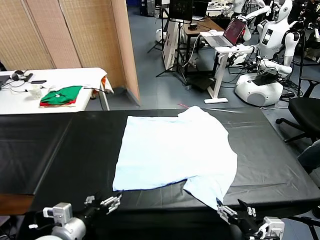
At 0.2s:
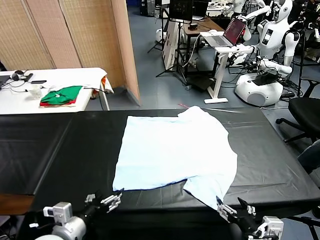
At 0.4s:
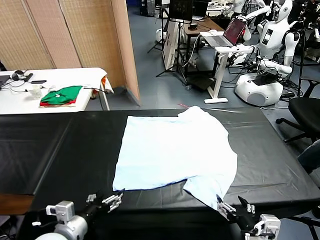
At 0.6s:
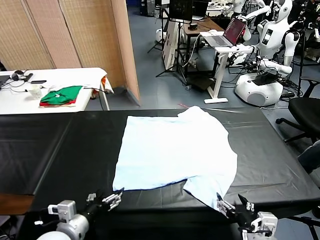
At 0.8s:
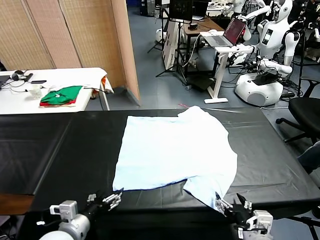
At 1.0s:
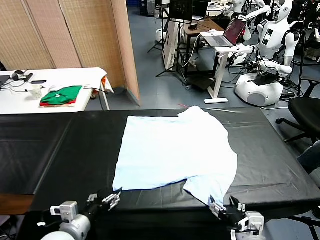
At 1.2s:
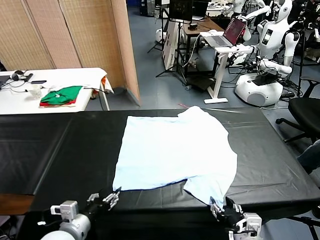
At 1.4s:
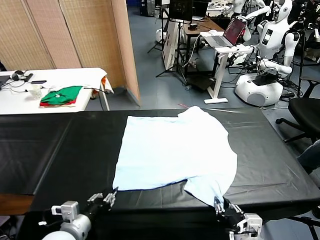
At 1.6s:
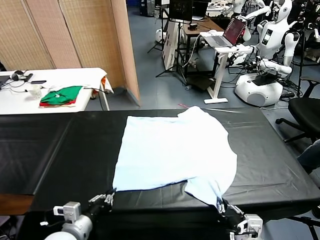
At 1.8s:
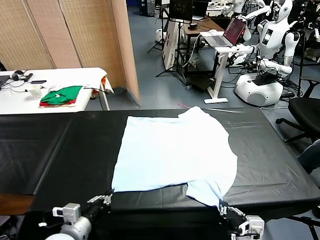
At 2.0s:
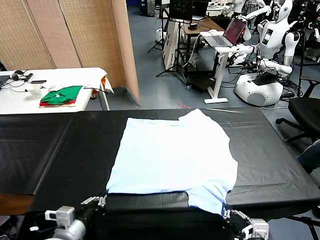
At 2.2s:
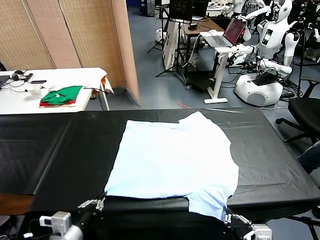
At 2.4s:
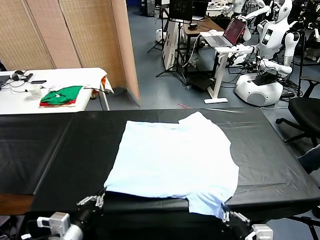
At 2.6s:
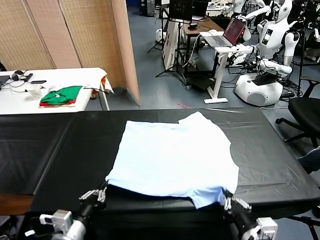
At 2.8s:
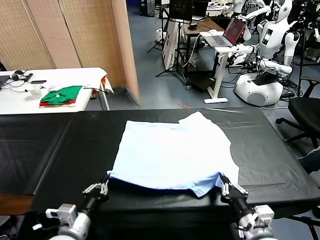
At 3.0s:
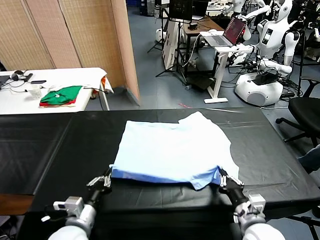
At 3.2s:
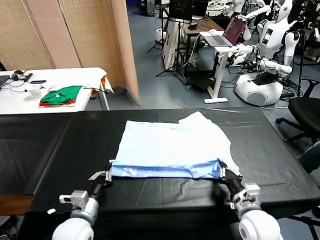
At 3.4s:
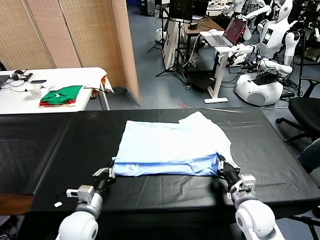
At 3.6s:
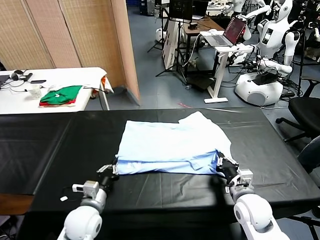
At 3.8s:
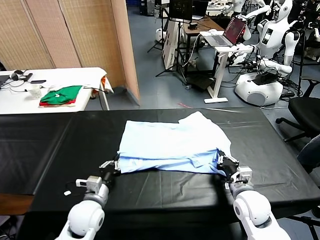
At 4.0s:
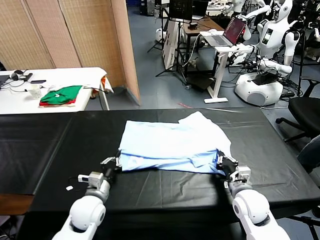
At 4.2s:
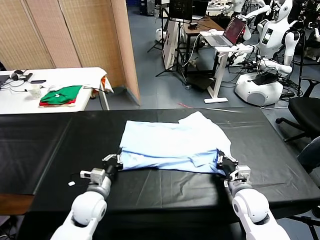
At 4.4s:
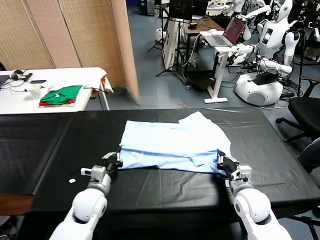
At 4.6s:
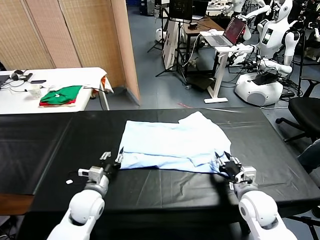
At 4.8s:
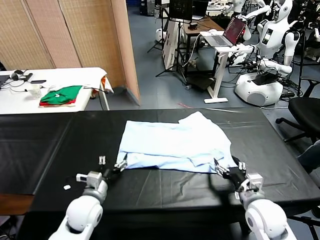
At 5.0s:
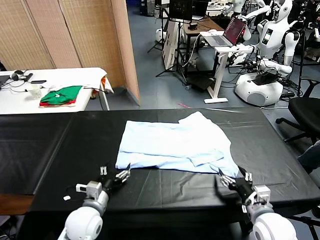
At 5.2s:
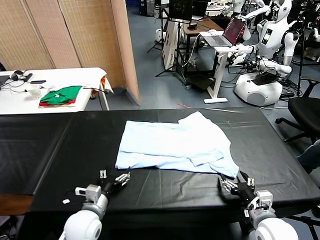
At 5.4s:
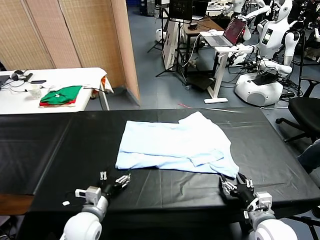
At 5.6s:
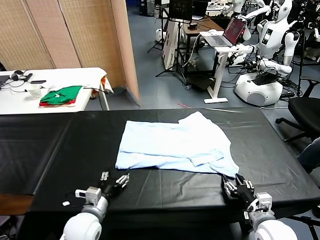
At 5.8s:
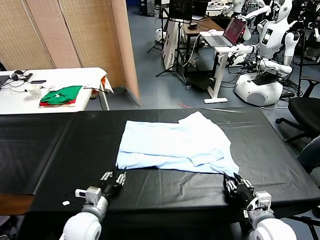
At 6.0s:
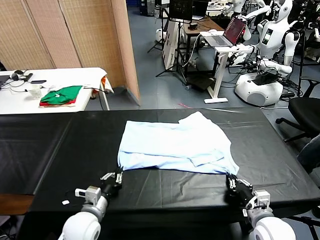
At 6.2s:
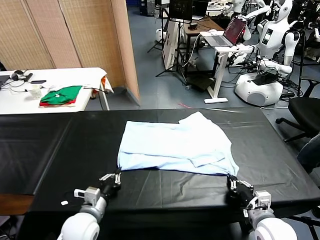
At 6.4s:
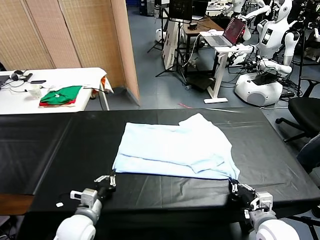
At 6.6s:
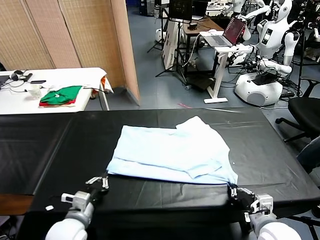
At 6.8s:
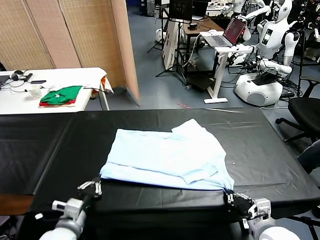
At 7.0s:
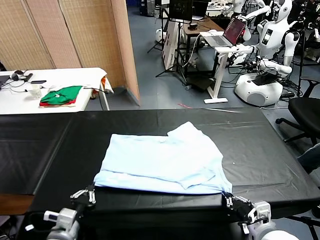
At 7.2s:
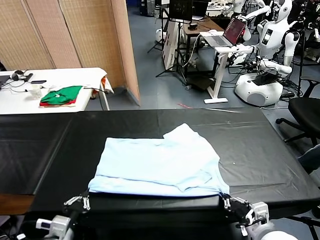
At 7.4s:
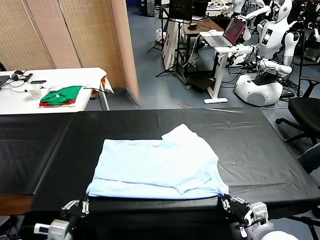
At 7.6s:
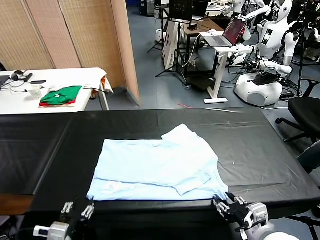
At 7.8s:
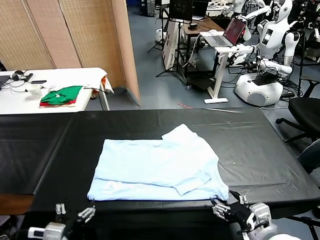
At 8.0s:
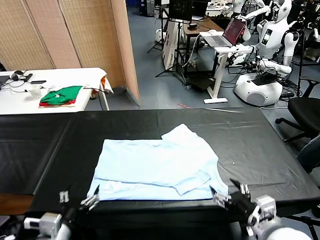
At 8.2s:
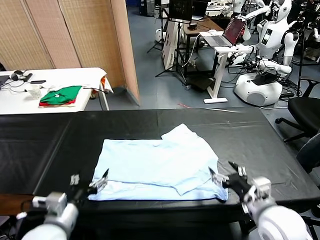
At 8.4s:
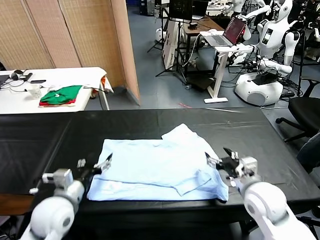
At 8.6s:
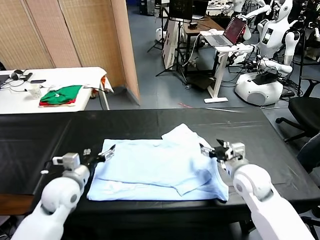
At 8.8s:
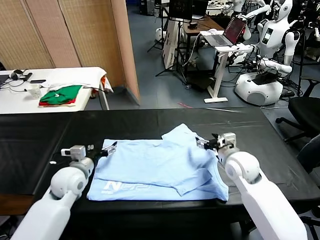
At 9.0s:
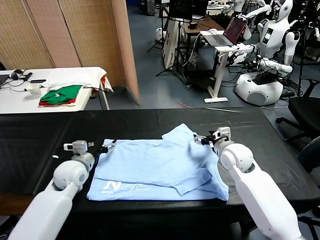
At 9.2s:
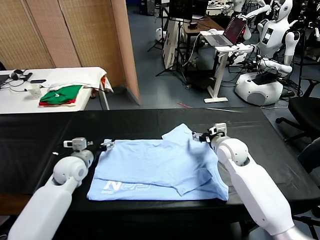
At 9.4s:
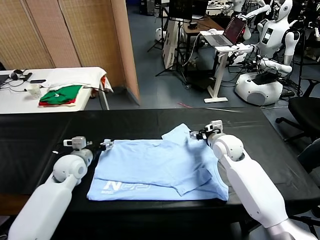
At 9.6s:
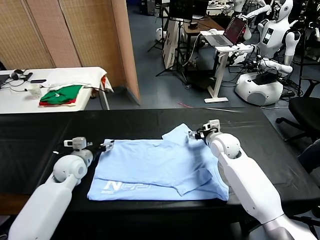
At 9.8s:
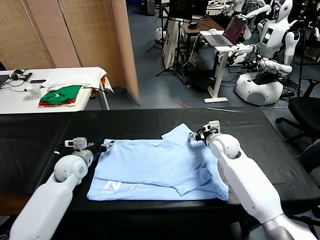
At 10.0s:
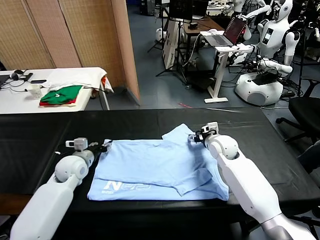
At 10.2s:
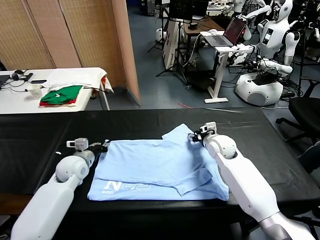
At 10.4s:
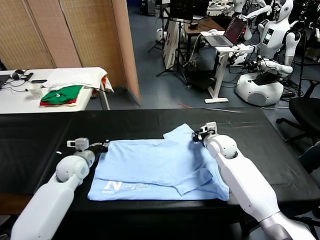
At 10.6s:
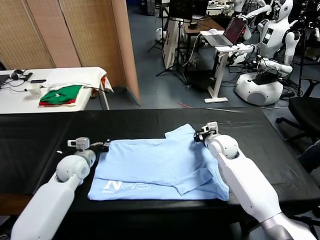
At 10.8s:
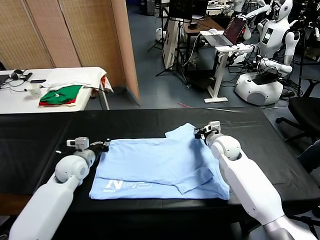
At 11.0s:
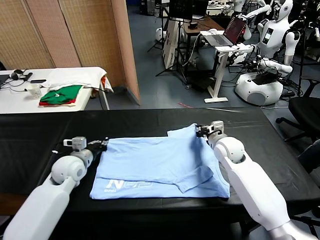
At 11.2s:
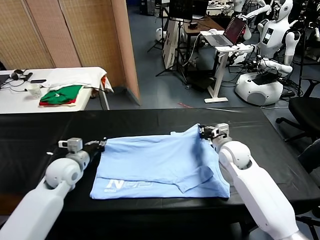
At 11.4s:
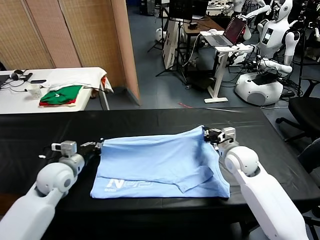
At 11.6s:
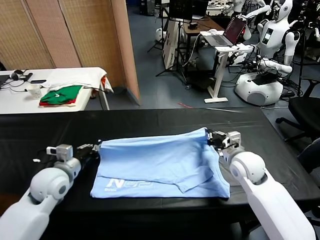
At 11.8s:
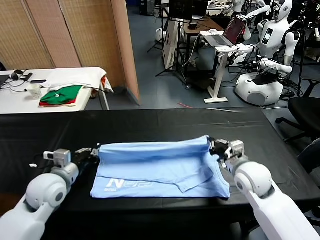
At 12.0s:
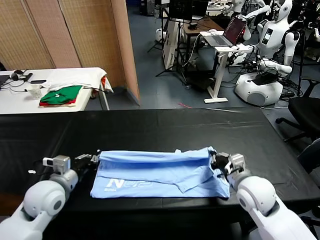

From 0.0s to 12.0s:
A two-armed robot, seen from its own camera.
Task of the whole recording: fold and organize the clothes.
Step, from 0.0s to 1.4s: use both grippers simultaneously to clamp the lower edge of the clothing fabric.
Step, from 1.8s to 4.6s: use both grippers to drag the lower edge of the fabric forward and fold it over the upper edge.
Step, from 4.8s to 7.6s: Drag the clothes downward with both gripper.
Step, from 7.8s to 10.2s: use both grippers simultaneously to clamp the upper edge of the clothing fabric.
From 1.6s to 3.0s: The right gripper goes approximately 15 cm forward.
From 3.0s to 4.4s: The right gripper opens its fingers. The left gripper goes about 10 cm forward.
From 4.4s to 6.0s: Both grippers move backward, some 5 cm. The right gripper closes its fingers, while the left gripper opens, then closes again.
From 6.0s to 7.6s: The right gripper goes approximately 10 cm upward and backward, and opens. Meanwhile the left gripper travels backward and upward by roughly 15 cm, and opens.
From 7.6s to 9.0s: Both grippers move forward, about 30 cm.
From 9.0s to 10.4s: The left gripper closes; the right gripper closes its fingers.
From 10.4s to 12.0s: The left gripper travels backward and upward by some 15 cm; the right gripper is displaced backward by approximately 20 cm.

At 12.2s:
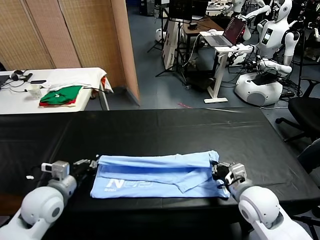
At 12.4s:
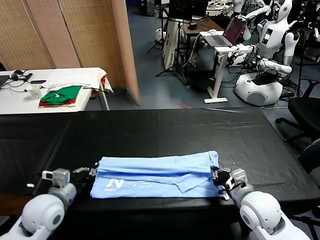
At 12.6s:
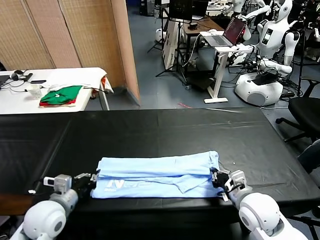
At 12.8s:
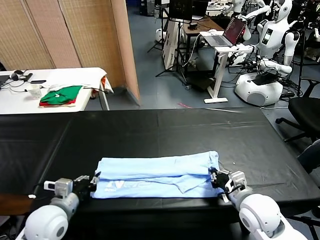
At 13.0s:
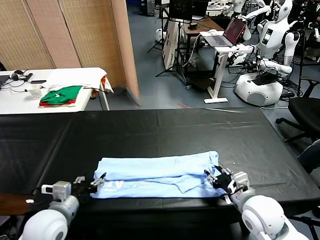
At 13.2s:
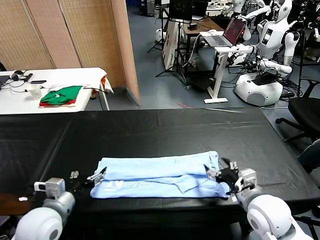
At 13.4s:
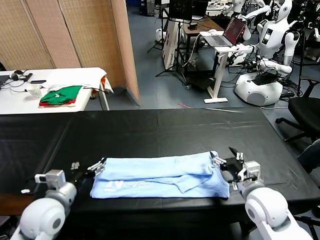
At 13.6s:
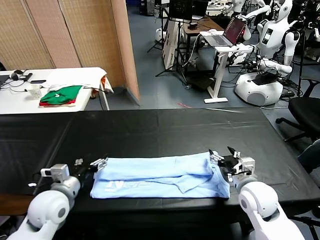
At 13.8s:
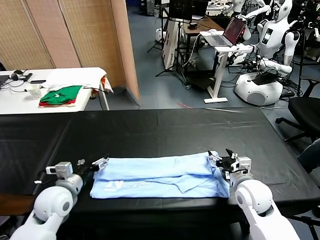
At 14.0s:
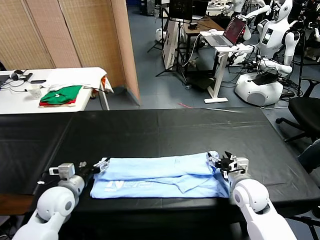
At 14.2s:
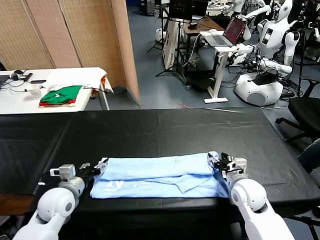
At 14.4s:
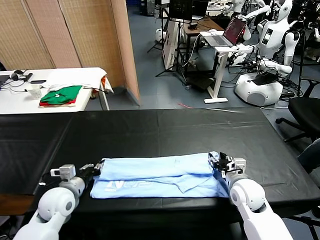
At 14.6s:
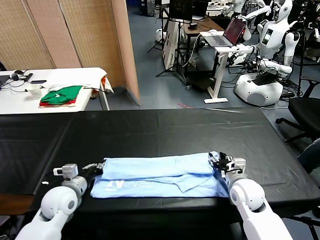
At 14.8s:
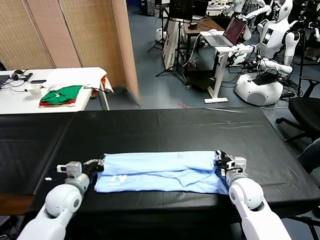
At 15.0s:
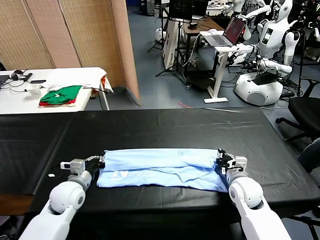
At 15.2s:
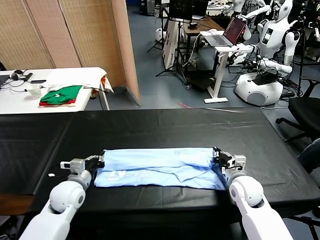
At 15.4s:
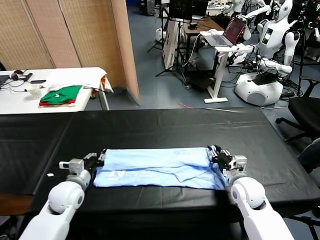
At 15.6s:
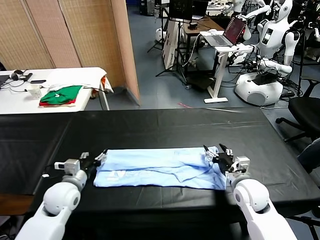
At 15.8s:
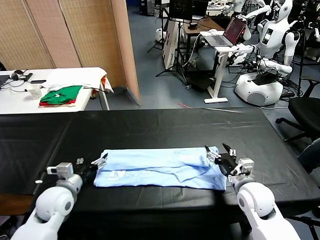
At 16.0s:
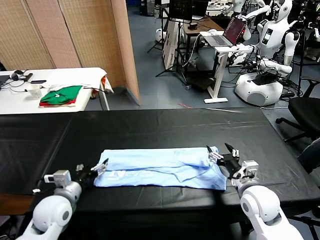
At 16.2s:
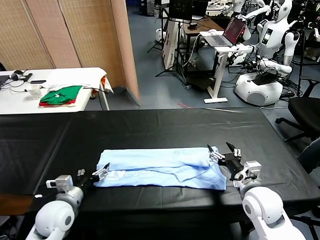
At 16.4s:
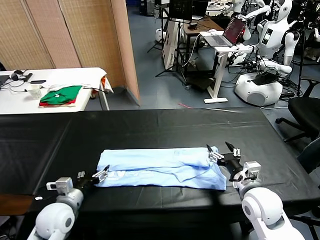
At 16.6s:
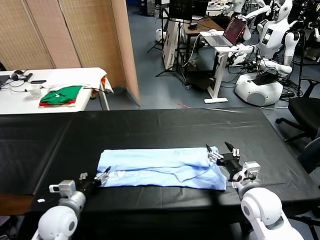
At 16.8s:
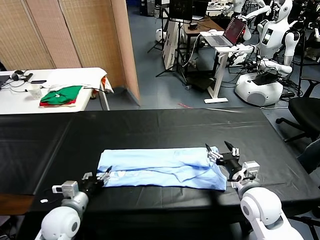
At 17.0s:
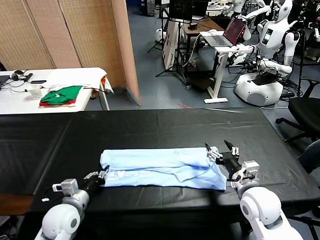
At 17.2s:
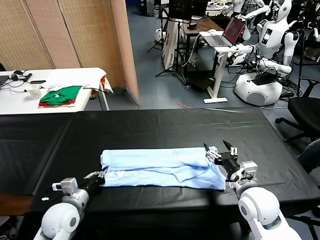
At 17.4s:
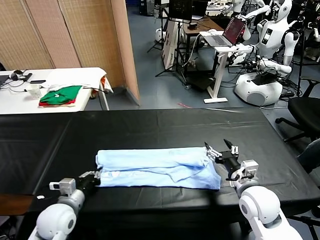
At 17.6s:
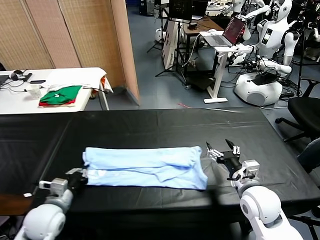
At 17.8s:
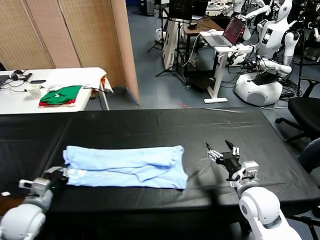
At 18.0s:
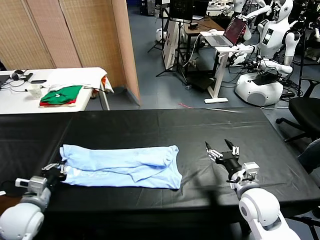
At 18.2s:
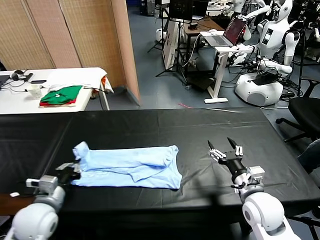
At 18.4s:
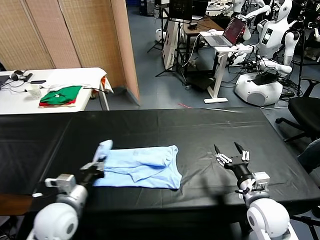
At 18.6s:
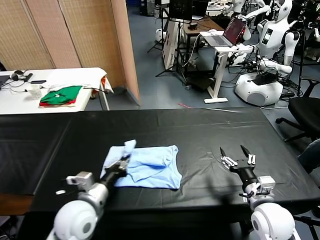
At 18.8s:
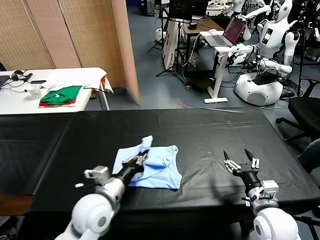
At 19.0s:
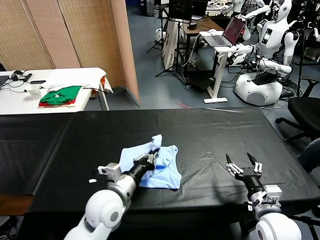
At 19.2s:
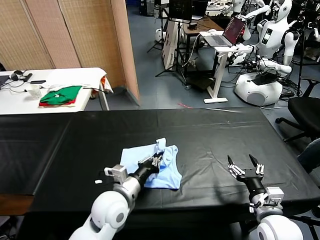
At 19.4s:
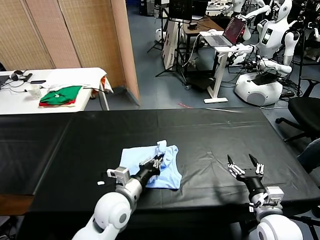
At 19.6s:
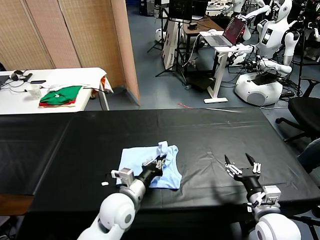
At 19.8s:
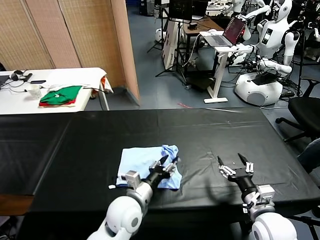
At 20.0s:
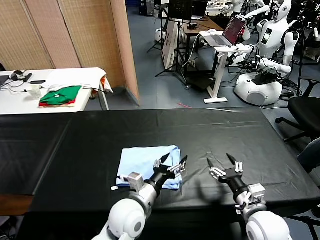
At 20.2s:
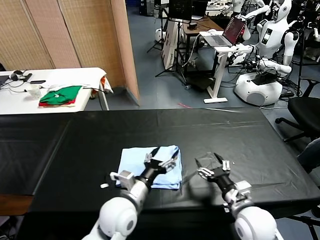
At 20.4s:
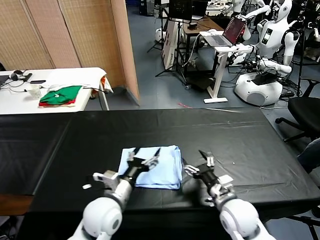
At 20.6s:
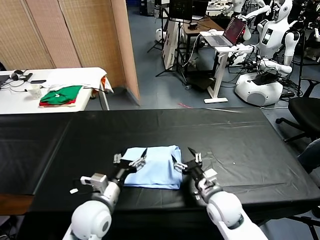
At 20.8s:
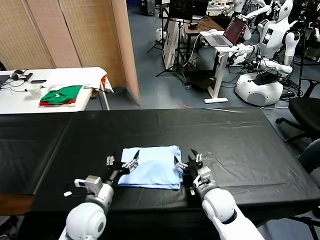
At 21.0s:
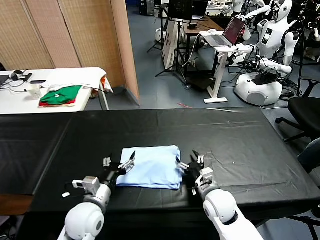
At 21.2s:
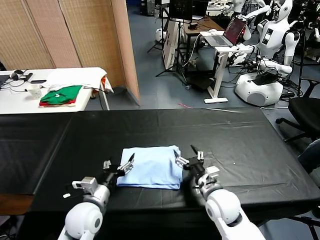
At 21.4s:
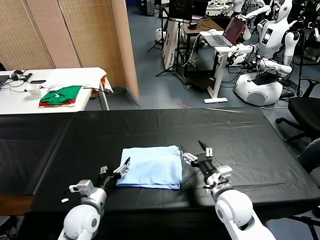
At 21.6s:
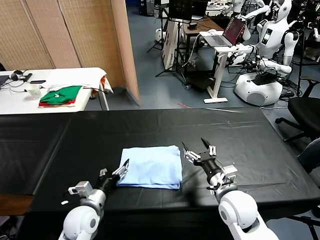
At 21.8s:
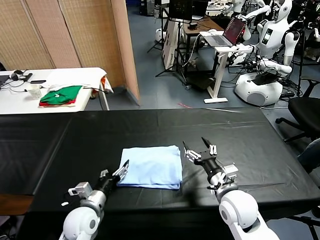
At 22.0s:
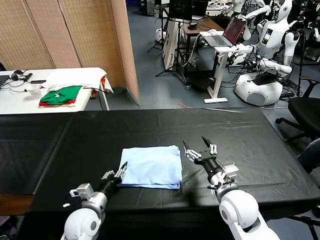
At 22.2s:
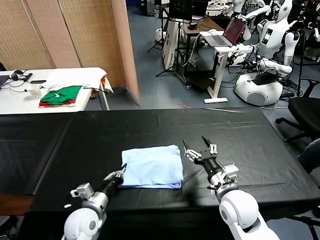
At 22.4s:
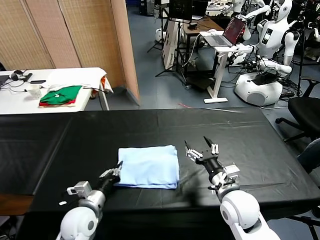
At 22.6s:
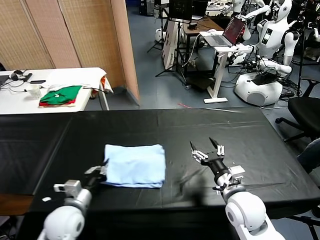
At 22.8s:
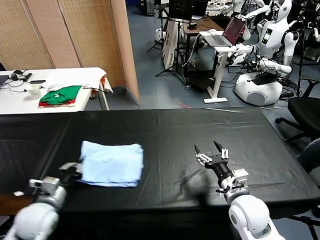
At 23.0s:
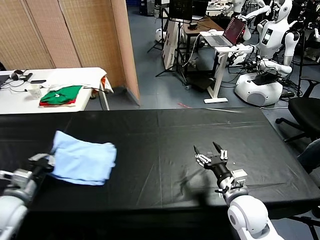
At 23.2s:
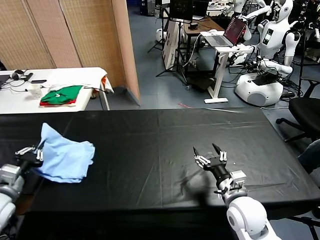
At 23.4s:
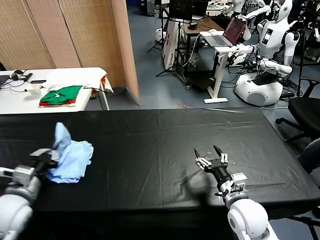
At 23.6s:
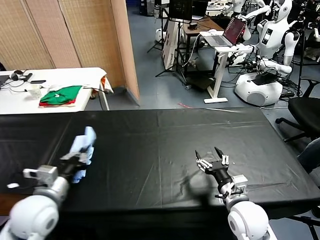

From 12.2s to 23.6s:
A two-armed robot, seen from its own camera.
Task of the whole recording: fold and organize the clothes.
Step, from 13.2s to 17.2s: use the left gripper to clamp the left edge of the fabric.
Step, from 17.4s to 19.8s: use the left gripper to drag the left edge of the fabric to the left and folds it over the right edge.
From 12.2s to 13.6s: The right gripper moves roughly 5 cm, and opens up. The left gripper opens its fingers.
From 13.6s to 15.0s: The right gripper shifts by approximately 5 cm, and closes its fingers; the left gripper goes approximately 5 cm downward, and closes its fingers.
From 15.0s to 16.4s: The left gripper is displaced backward by some 5 cm, and opens. The right gripper moves backward and upward, about 10 cm, and opens.
From 16.4s to 17.8s: The left gripper is displaced to the left by approximately 5 cm, and closes its fingers.
From 17.8s to 19.4s: The left gripper travels to the right by approximately 25 cm. Meanwhile the right gripper moves backward, roughly 5 cm.
From 19.4s to 20.8s: The left gripper moves to the left, some 5 cm, and opens up. The right gripper moves to the left, forward and downward, roughly 15 cm.
From 20.8s to 22.2s: The right gripper shifts about 5 cm upward. Meanwhile the left gripper heads downward, covering roughly 5 cm, and closes up.
From 22.2s to 23.6s: The left gripper heads upward and to the left, covering approximately 15 cm.
